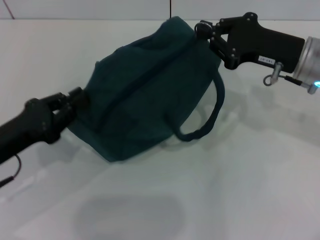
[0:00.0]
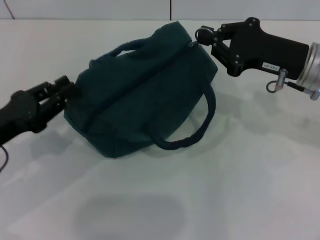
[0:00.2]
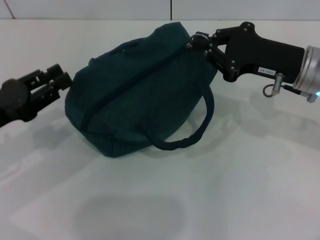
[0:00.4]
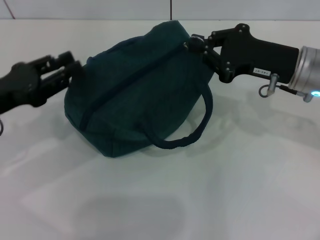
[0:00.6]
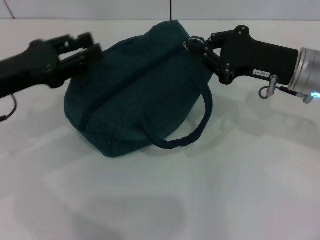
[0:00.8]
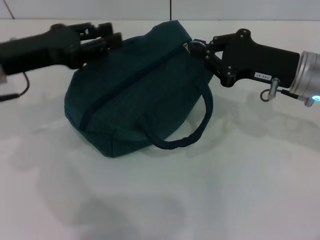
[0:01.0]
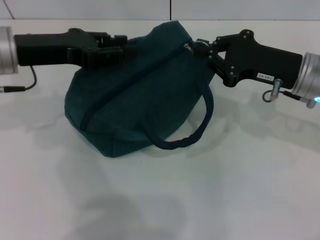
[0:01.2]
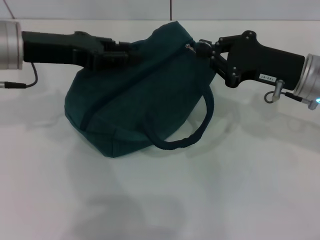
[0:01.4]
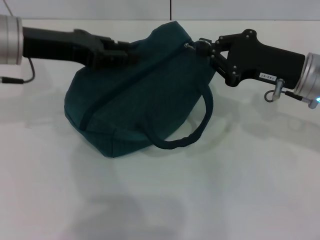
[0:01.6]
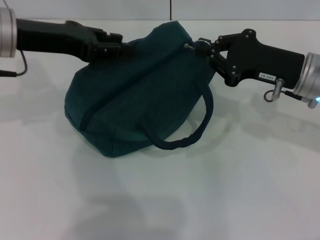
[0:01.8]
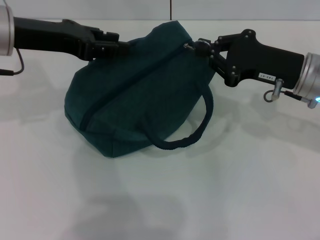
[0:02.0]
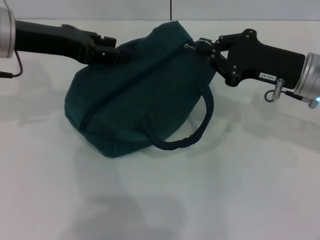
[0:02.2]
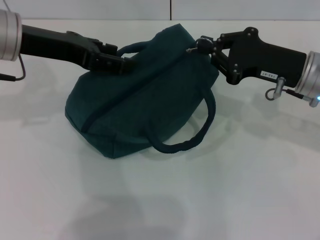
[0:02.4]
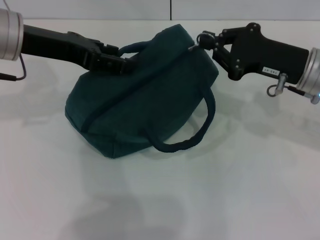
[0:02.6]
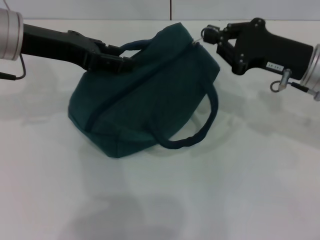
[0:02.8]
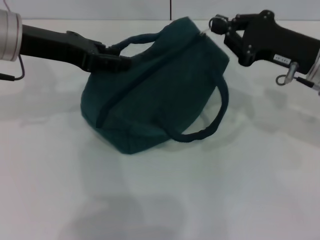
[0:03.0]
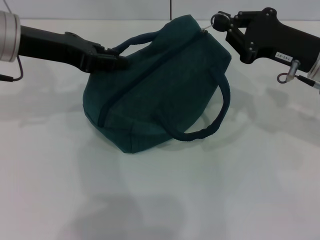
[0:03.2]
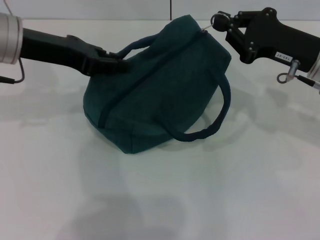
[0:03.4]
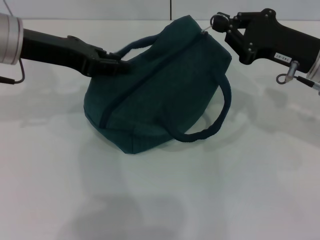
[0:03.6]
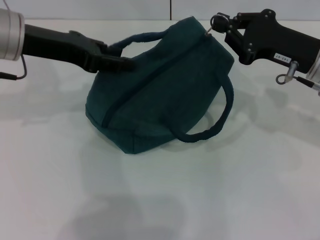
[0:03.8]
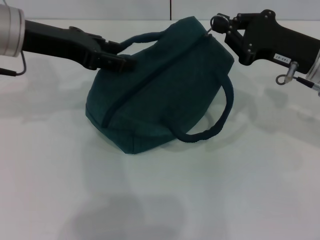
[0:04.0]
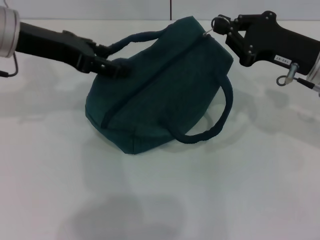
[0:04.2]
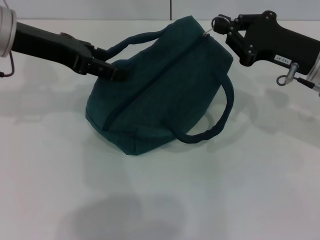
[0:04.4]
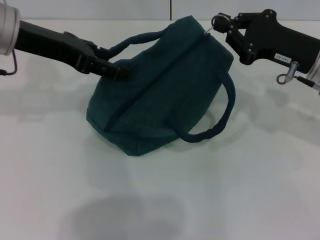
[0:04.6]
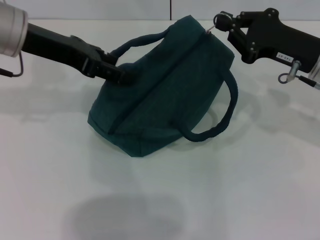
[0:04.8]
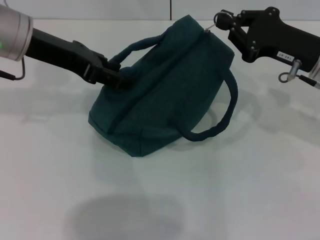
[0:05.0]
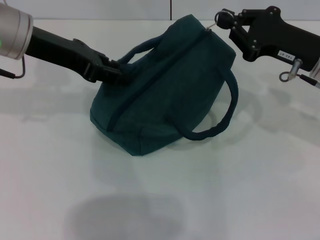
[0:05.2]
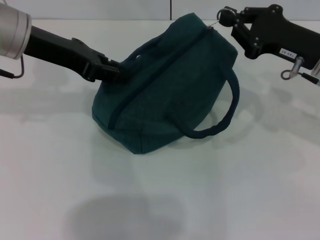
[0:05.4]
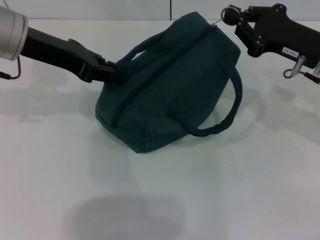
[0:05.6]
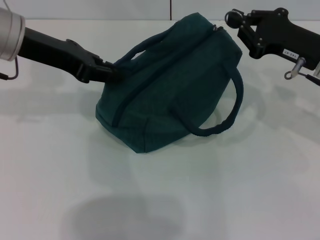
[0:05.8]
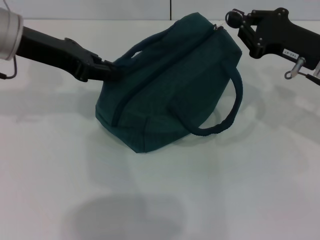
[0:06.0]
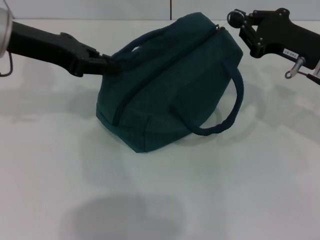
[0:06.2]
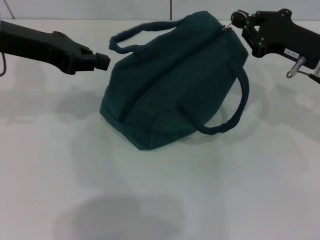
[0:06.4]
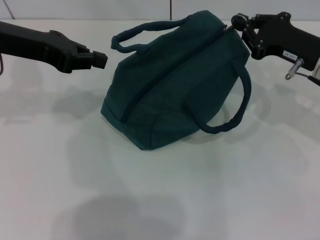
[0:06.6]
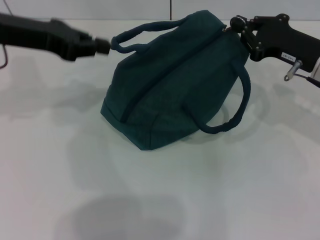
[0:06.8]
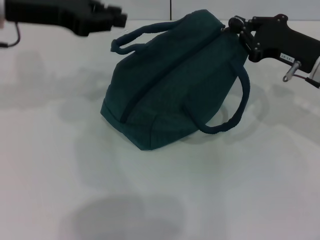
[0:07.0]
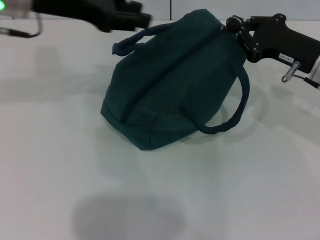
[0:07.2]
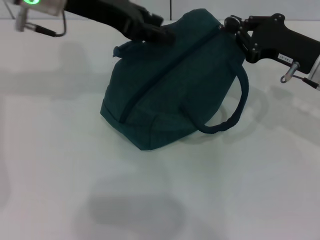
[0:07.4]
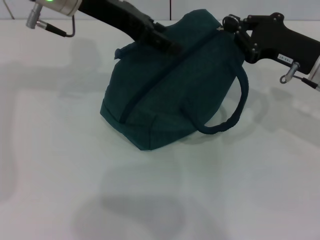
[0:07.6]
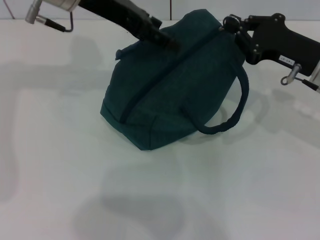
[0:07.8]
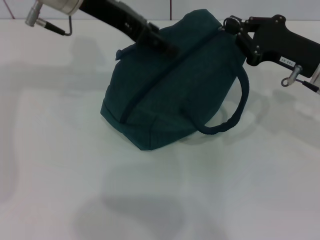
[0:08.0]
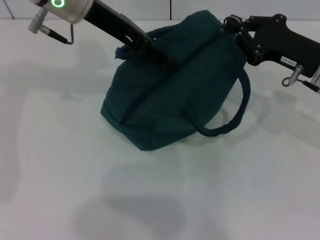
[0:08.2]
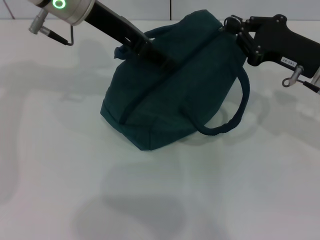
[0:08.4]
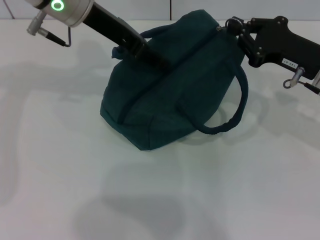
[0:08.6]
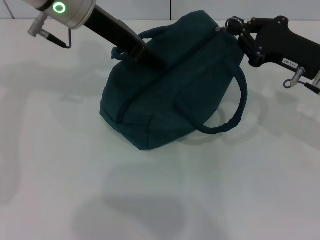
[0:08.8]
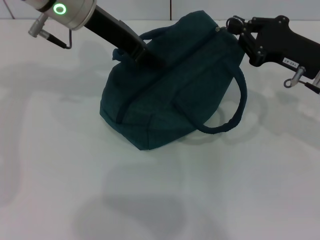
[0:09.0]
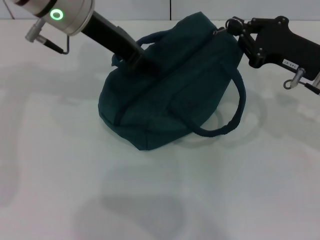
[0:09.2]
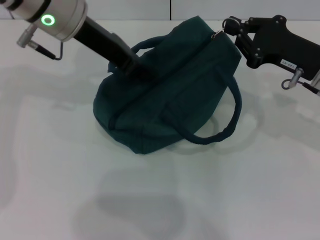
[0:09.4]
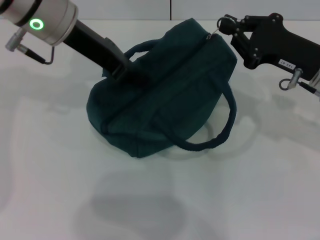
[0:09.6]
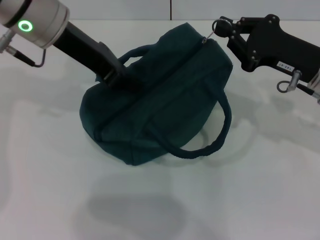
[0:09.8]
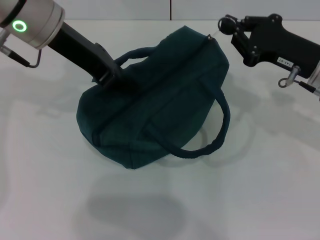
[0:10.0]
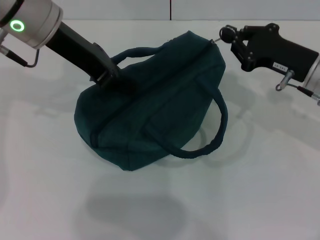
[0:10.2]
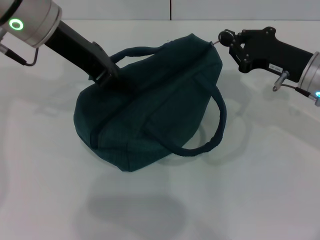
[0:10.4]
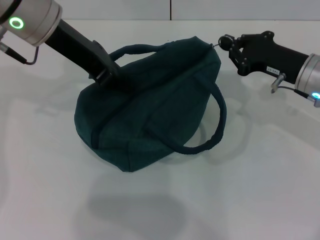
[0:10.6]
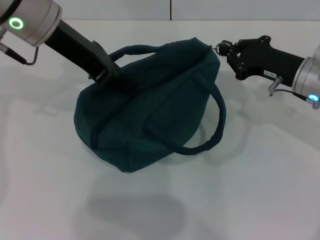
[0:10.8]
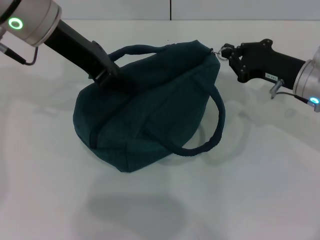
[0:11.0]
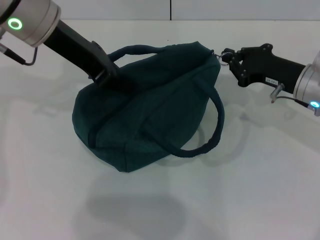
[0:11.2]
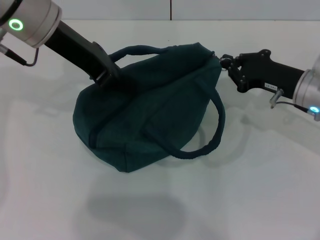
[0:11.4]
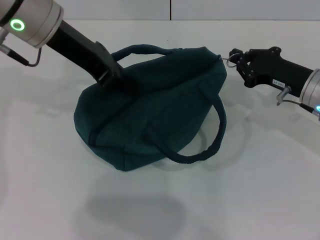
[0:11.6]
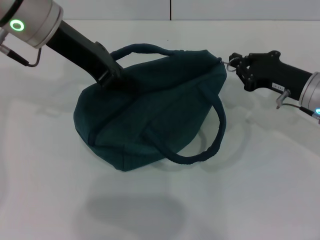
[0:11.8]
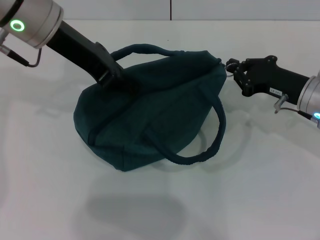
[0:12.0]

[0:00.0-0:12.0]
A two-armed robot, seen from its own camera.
0:00.0 to 0:01.6: The left gripper shifts about 20 cm upward, forward and to the right, and opens its fingers.
0:01.6 to 0:03.0: The grippers stay close to where they were, moving slightly.
0:03.0 to 0:04.4: The left gripper closes, then opens again.
0:04.4 to 0:06.0: The left gripper closes its fingers.
0:06.0 to 0:07.6: The left gripper travels to the right by approximately 10 cm, and opens its fingers.
0:07.6 to 0:09.0: The left gripper opens, then closes once more.
0:09.0 to 0:10.4: The left gripper closes.
0:10.4 to 0:12.0: The grippers move only a little.

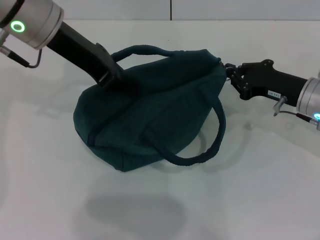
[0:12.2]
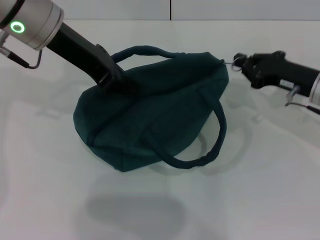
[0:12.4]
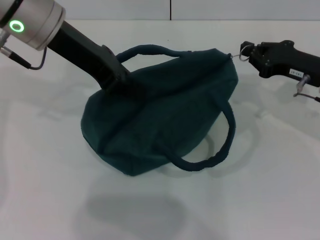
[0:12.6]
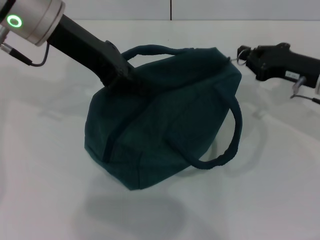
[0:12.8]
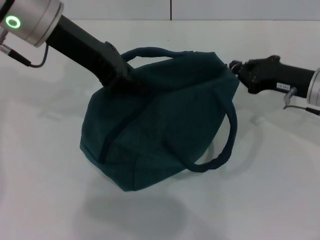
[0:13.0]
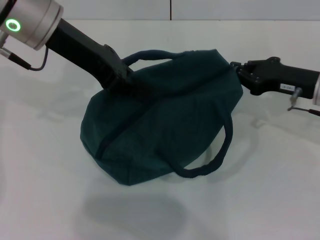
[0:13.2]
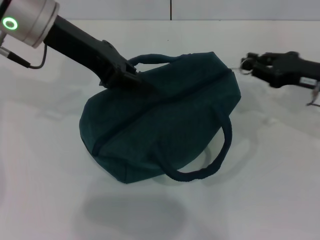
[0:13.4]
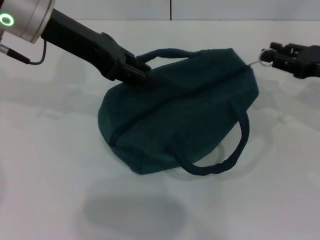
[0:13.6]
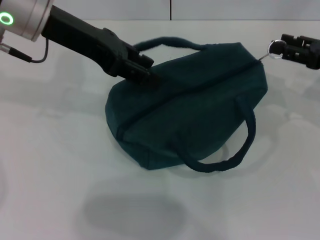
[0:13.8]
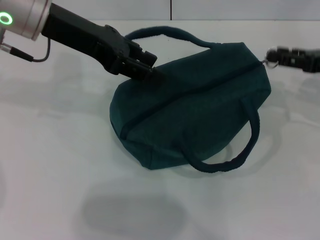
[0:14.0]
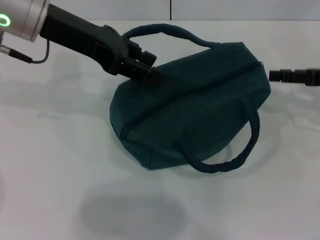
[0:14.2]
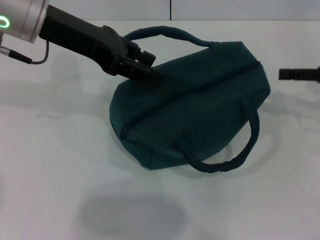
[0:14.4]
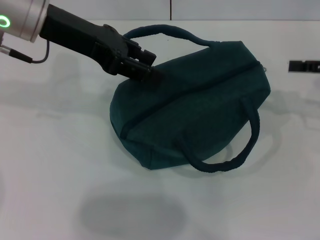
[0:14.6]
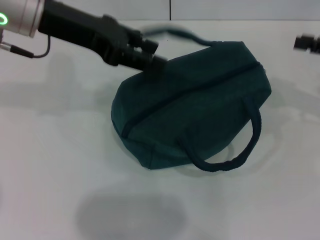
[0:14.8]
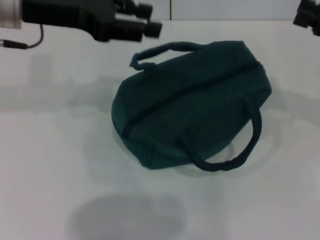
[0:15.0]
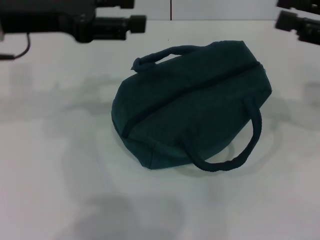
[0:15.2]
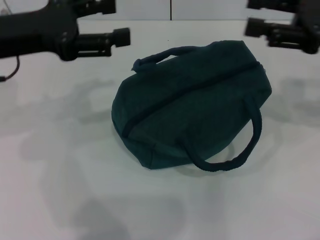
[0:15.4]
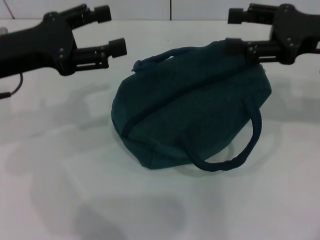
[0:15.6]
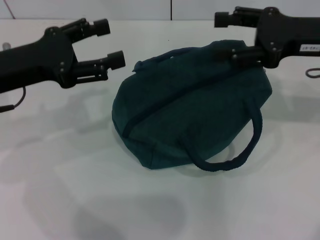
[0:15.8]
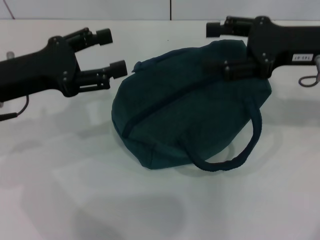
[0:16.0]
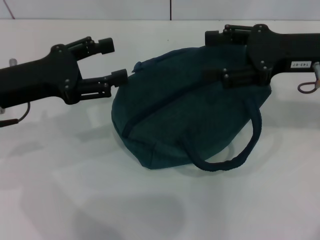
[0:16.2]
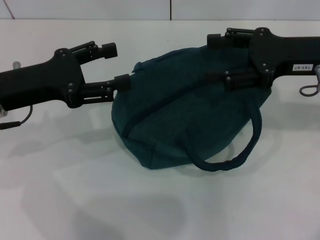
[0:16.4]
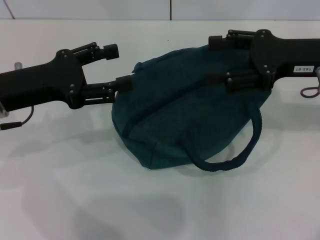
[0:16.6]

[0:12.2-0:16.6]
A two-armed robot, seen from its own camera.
Step, 0:14.0 to 0:14.2: Zip up the lunch bag with your right hand.
0:12.2 to 0:13.6: The right gripper is displaced to the right by approximately 5 cm.
0:13.6 to 0:15.2: The left gripper shifts about 5 cm to the left, and opens up, while the right gripper heads upward, covering approximately 10 cm, and opens.
0:15.2 to 0:16.6: The right gripper travels to the left by approximately 5 cm. Meanwhile the left gripper goes some 10 cm downward.

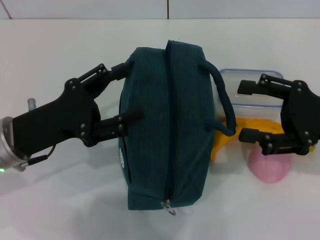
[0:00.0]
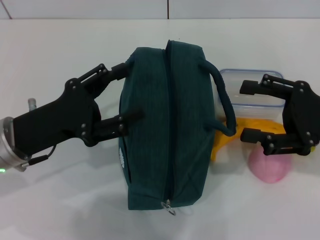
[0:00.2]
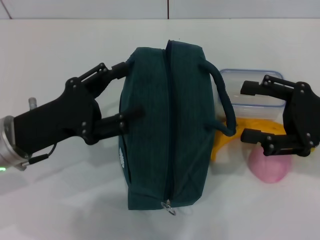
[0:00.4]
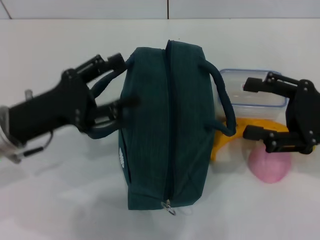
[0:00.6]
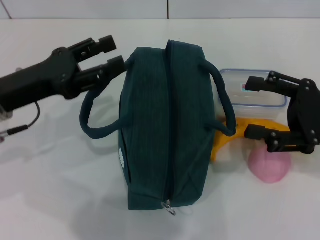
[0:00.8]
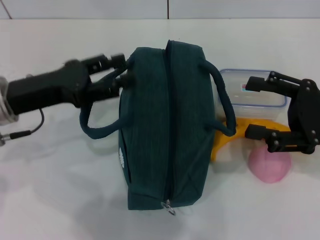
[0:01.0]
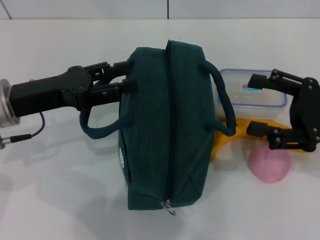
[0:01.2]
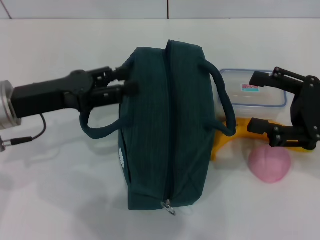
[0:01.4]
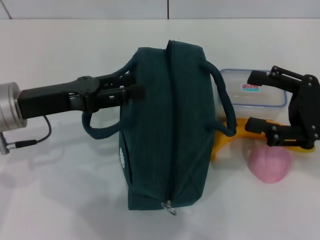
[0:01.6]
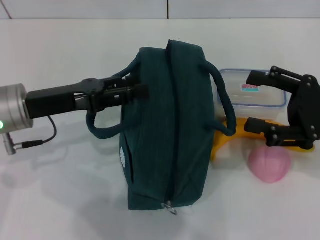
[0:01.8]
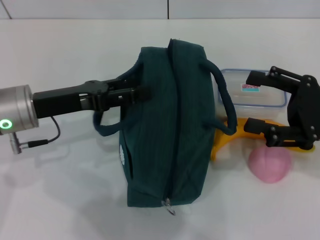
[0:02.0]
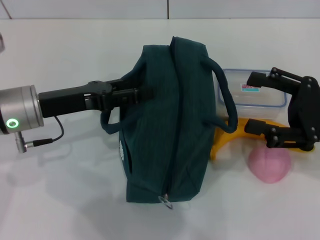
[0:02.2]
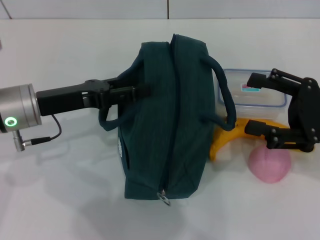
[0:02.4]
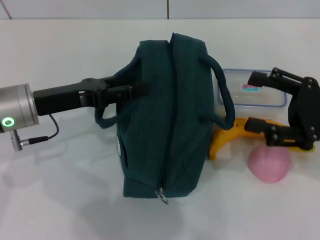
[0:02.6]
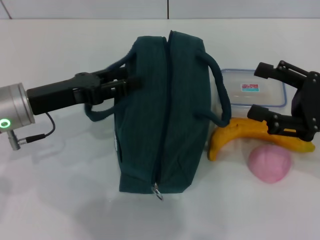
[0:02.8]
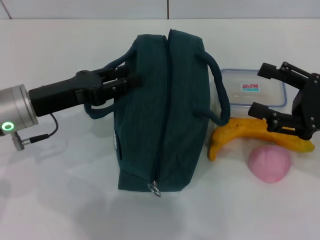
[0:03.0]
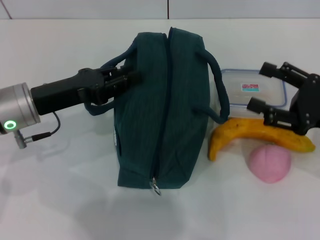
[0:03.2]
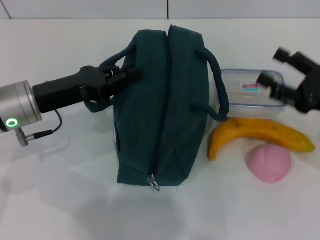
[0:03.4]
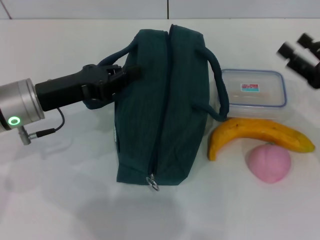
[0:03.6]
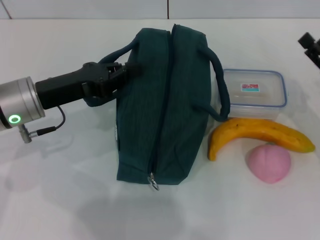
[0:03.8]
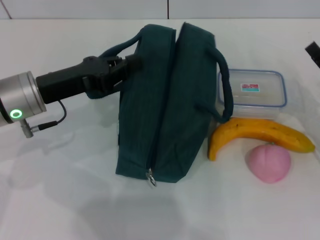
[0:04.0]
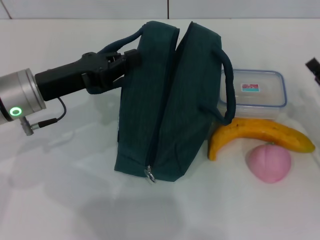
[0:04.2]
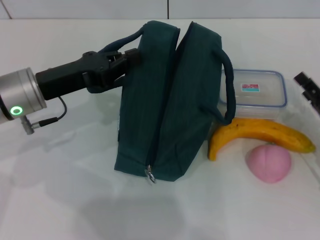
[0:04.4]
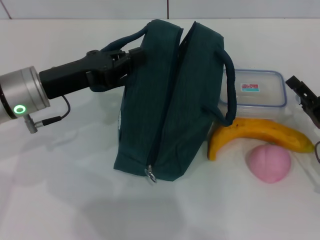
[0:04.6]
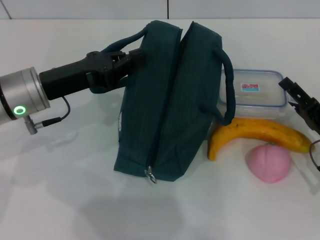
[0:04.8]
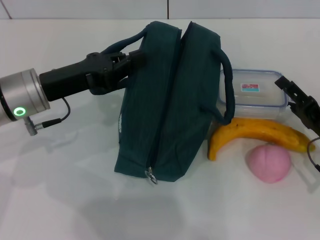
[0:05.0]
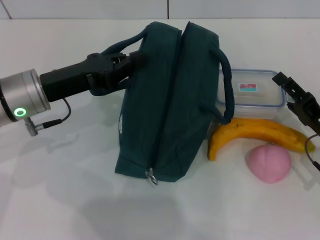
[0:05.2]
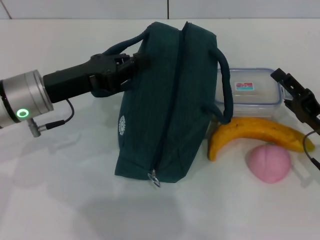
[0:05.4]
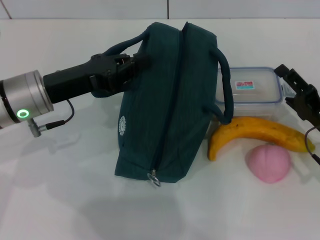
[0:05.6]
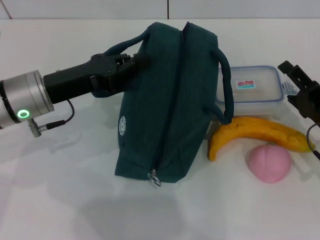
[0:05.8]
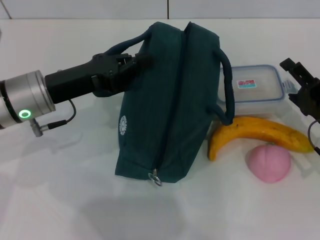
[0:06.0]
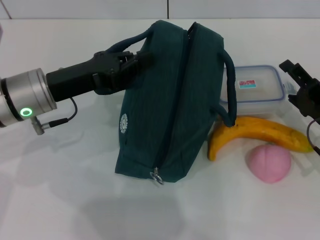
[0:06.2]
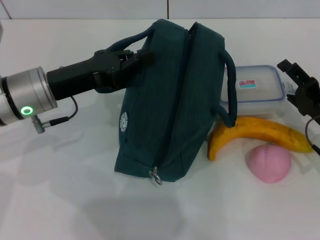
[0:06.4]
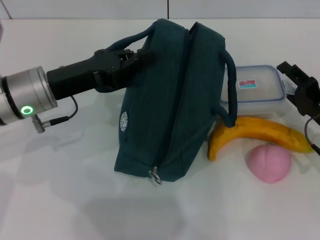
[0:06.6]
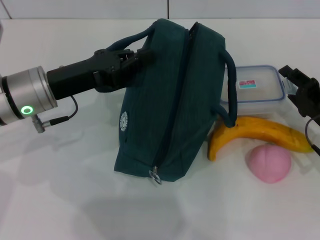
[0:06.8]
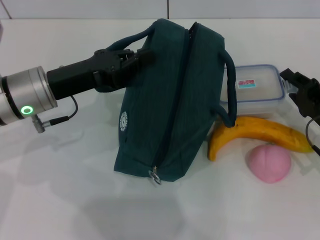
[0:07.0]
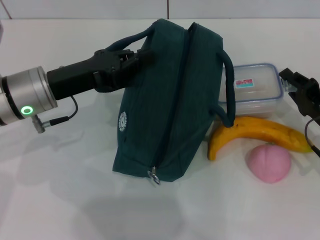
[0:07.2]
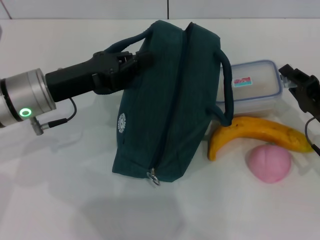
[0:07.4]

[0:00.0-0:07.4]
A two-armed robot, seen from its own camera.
Step, 0:00.0 to 0:02.6: Hold the lunch bag with your left hand.
0:00.0 to 0:01.4: The left gripper shifts by some 5 cm.
0:01.4 to 0:03.0: The grippers move only a little.
0:03.0 to 0:04.4: The left gripper closes up, while the right gripper shifts approximately 10 cm downward.
0:04.4 to 0:06.0: There are only small adjustments of the grippers.
0:06.0 to 0:07.4: The right gripper closes its fingers.
